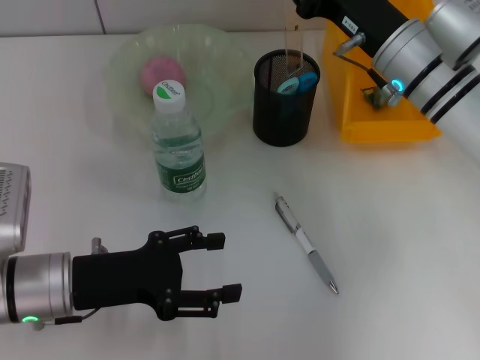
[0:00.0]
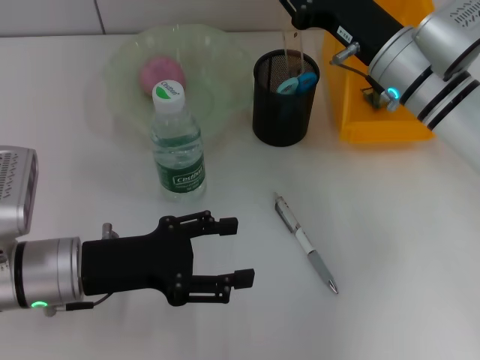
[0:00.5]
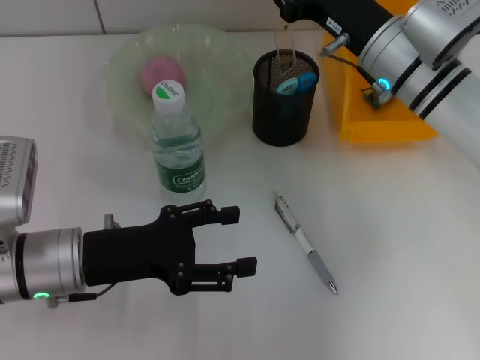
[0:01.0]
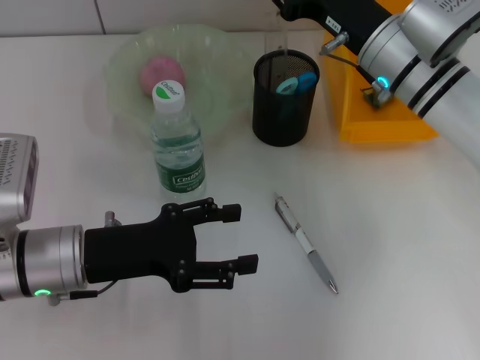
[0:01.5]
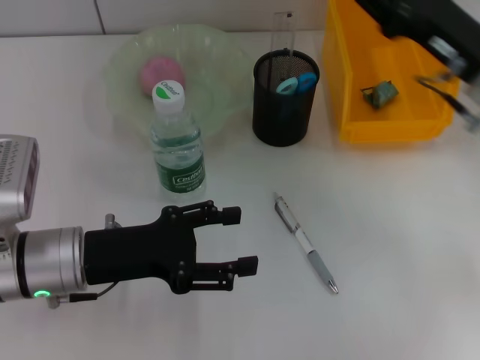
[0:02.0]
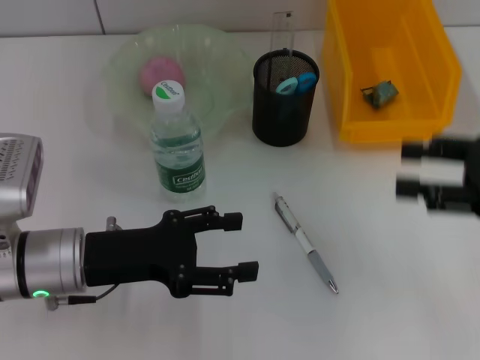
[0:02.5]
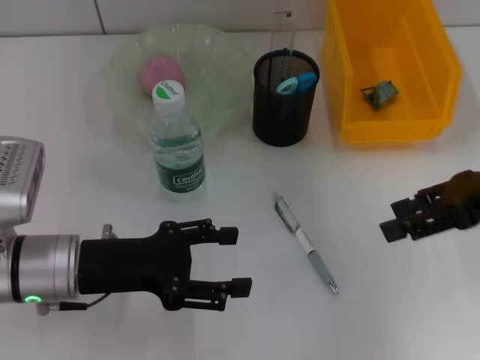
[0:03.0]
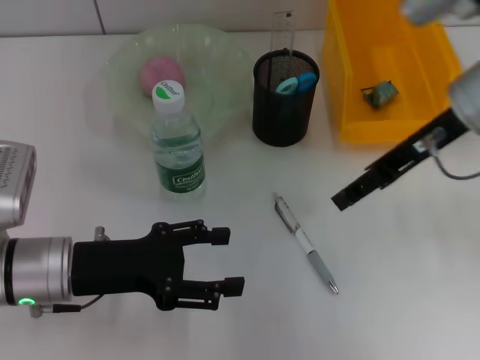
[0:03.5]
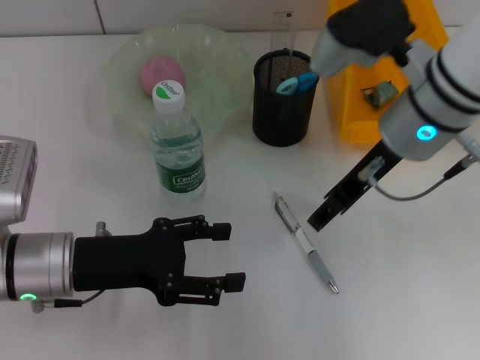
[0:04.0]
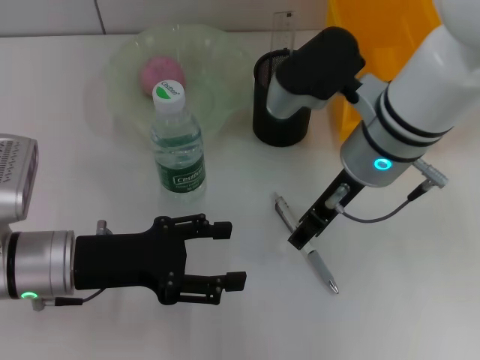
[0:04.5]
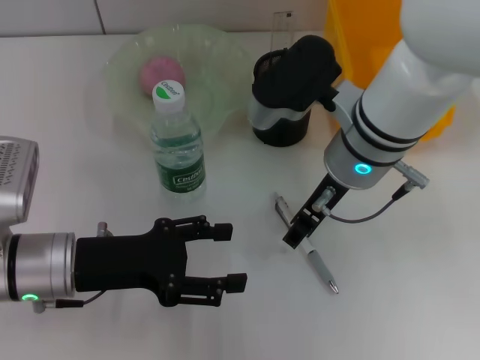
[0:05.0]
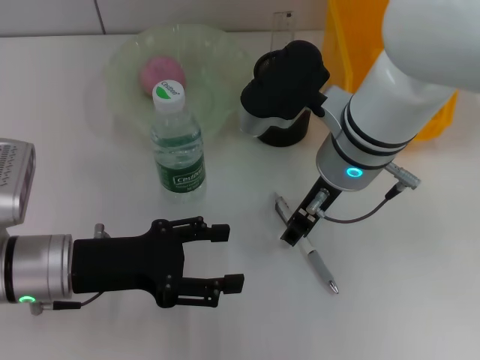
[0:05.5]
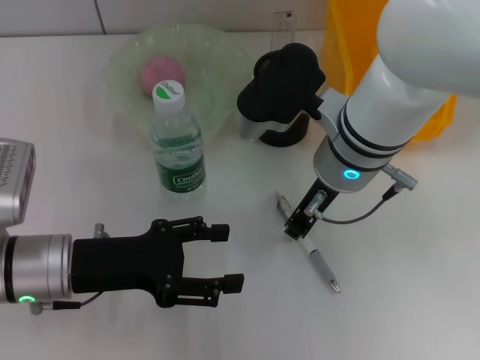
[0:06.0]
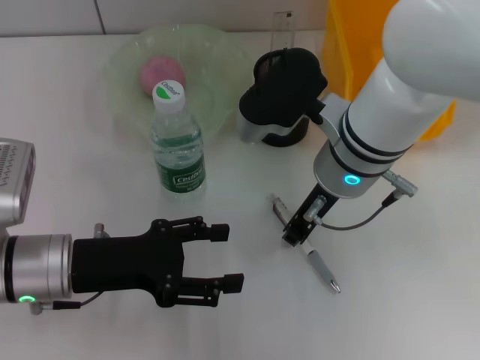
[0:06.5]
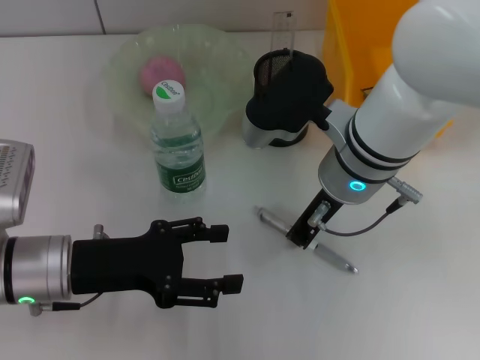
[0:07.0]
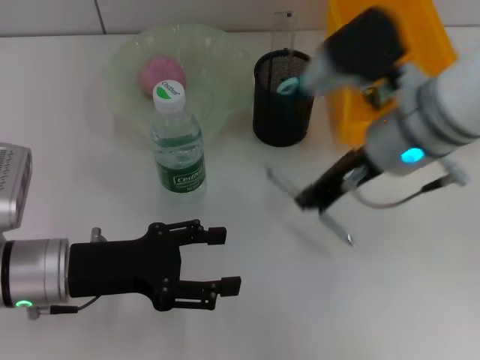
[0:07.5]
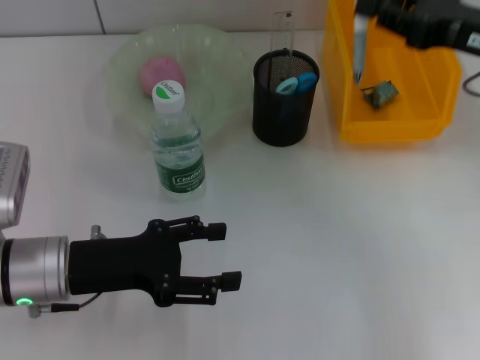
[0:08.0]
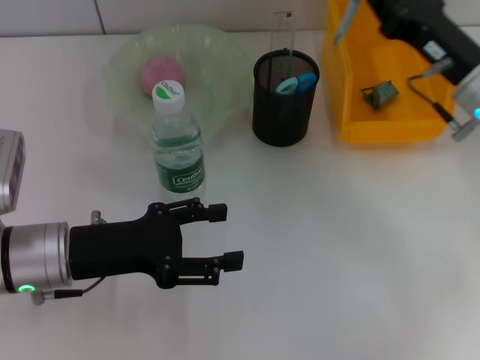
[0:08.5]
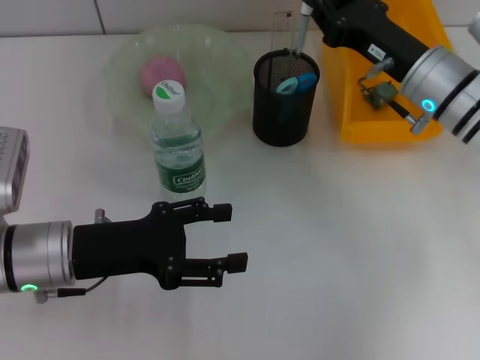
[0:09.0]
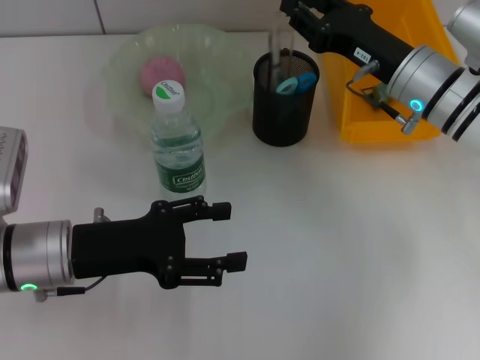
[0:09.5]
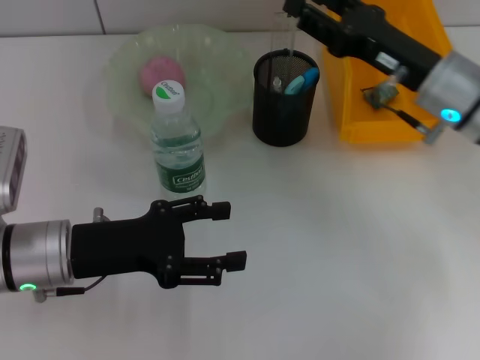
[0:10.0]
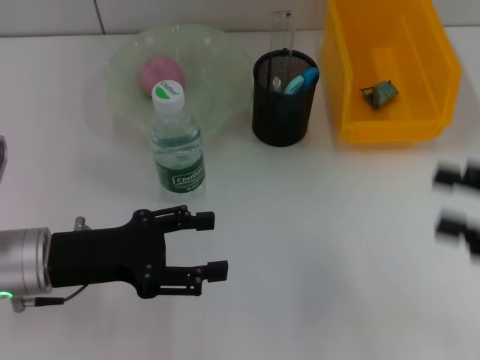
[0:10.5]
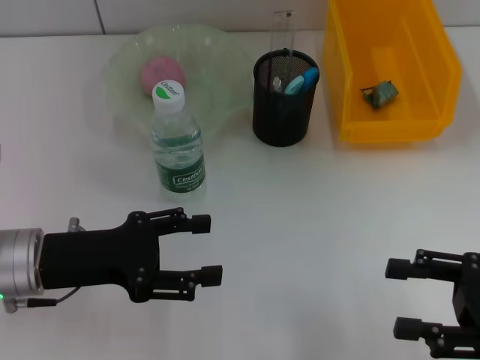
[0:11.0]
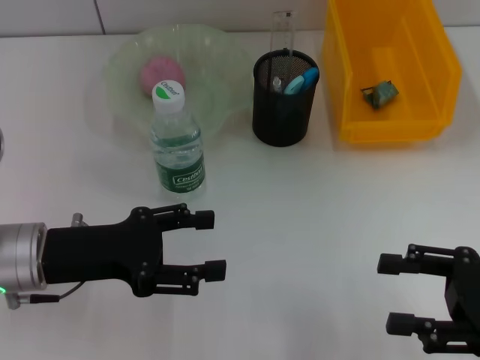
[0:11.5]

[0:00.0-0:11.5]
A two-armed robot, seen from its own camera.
Step, 0:02.0 to 0:07.0: Grab the gray spring-action pen with the right hand.
Step, 0:07.5 to 0:09.5: Place the gray spring-action pen into the pen holder with the right hand.
0:00.0 to 0:02.0: The right gripper goes approximately 10 cm to the right.
0:02.0 to 0:04.0: The right gripper heads to the left, covering roughly 10 cm.
0:04.0 to 0:06.0: The right gripper moves to the left, about 5 cm, and closes up.
0:06.0 to 0:07.5: The right gripper heads to the right, covering roughly 5 cm.
0:07.5 to 0:09.5: The right gripper heads downward, to the right and forward, covering approximately 10 cm.
0:09.5 to 0:11.5: The right gripper moves backward and to the right, about 20 cm, and opens.
